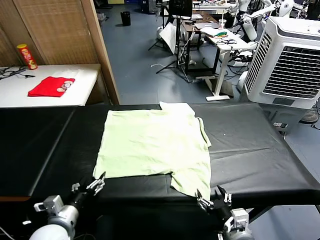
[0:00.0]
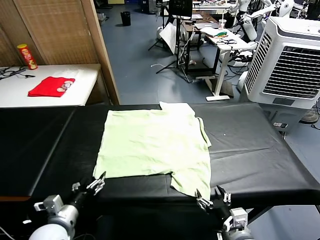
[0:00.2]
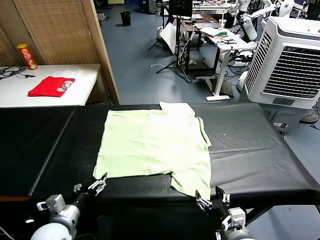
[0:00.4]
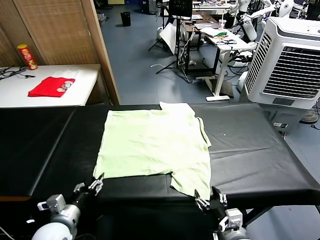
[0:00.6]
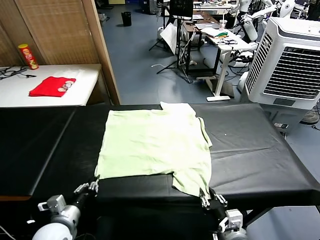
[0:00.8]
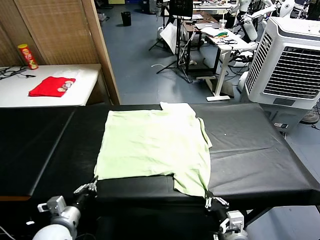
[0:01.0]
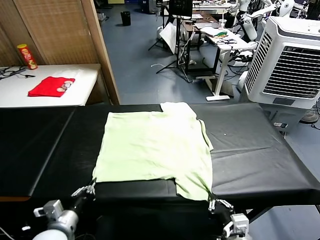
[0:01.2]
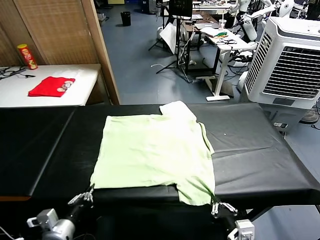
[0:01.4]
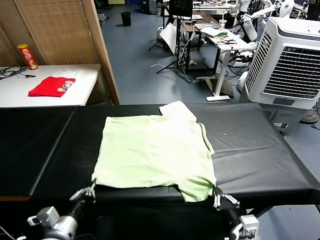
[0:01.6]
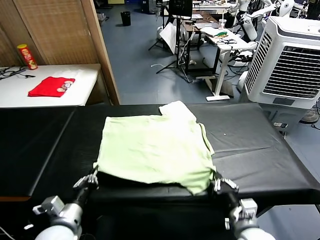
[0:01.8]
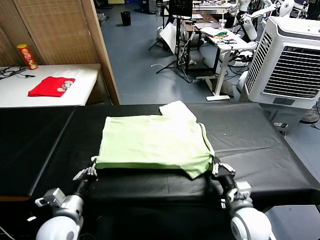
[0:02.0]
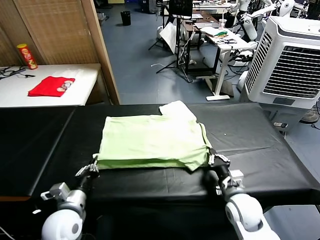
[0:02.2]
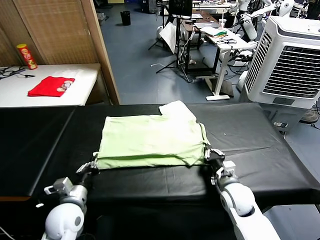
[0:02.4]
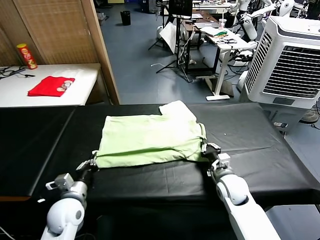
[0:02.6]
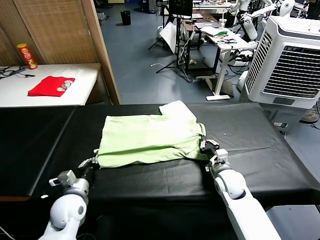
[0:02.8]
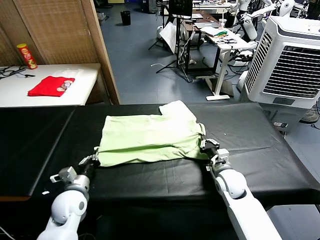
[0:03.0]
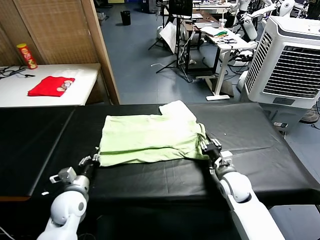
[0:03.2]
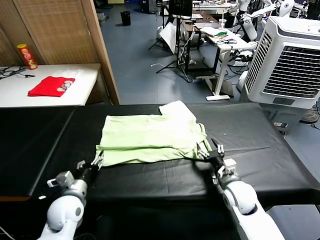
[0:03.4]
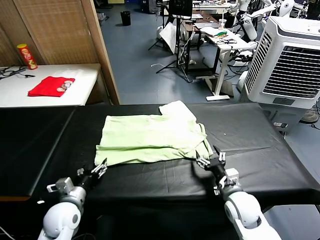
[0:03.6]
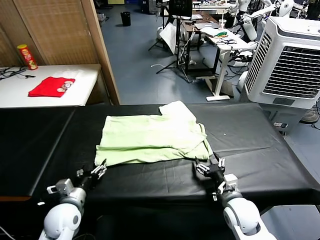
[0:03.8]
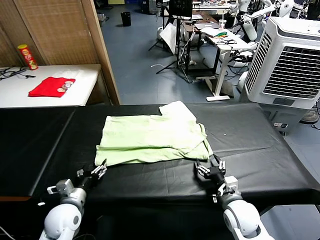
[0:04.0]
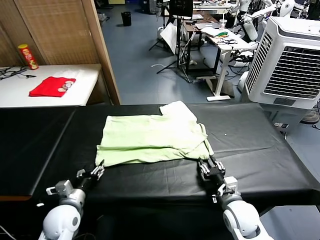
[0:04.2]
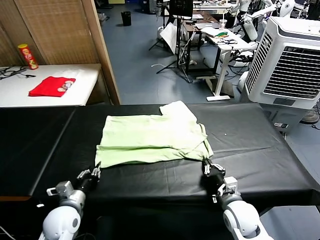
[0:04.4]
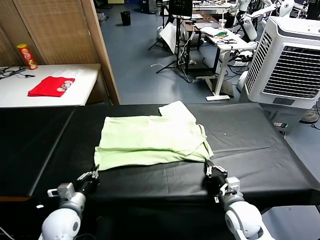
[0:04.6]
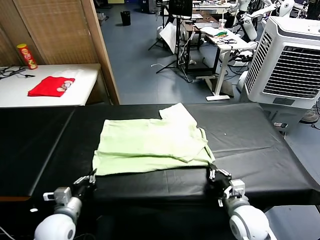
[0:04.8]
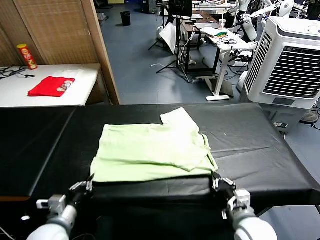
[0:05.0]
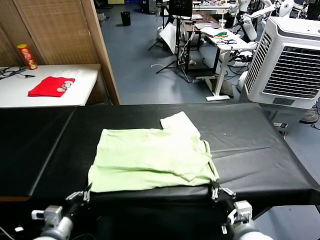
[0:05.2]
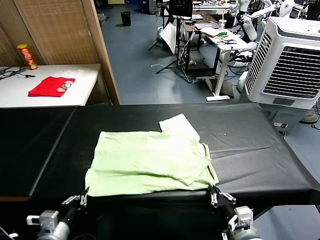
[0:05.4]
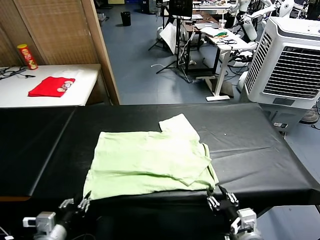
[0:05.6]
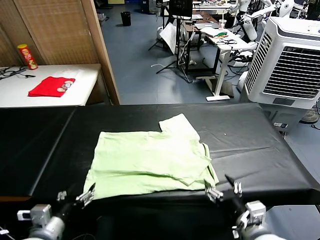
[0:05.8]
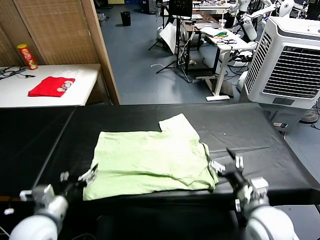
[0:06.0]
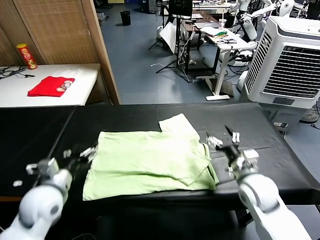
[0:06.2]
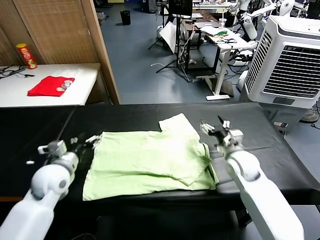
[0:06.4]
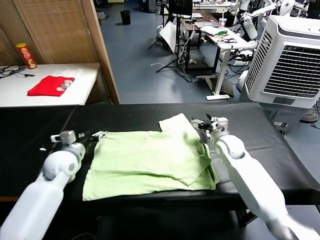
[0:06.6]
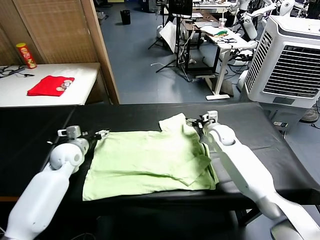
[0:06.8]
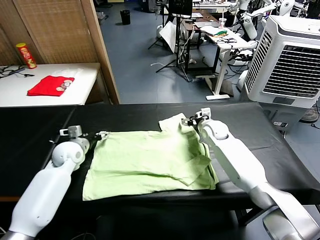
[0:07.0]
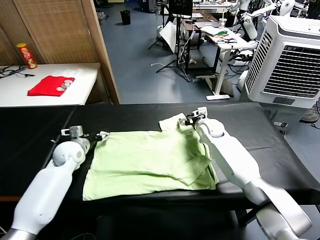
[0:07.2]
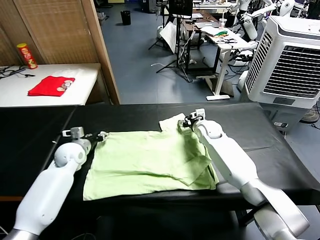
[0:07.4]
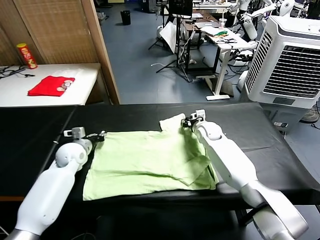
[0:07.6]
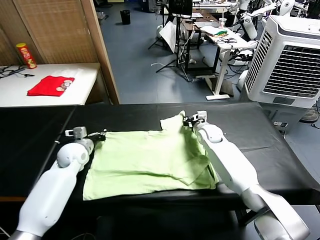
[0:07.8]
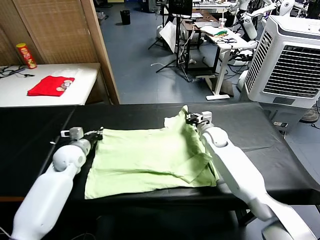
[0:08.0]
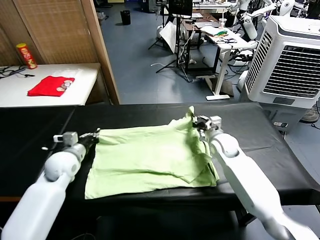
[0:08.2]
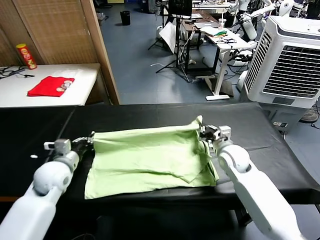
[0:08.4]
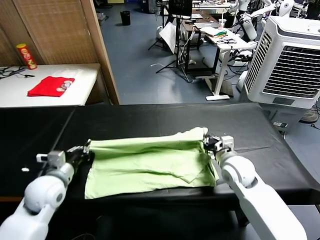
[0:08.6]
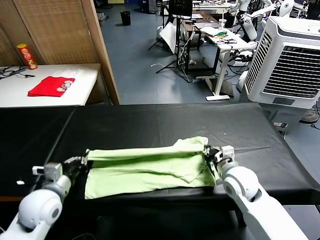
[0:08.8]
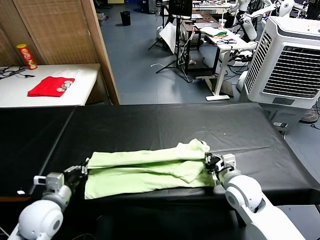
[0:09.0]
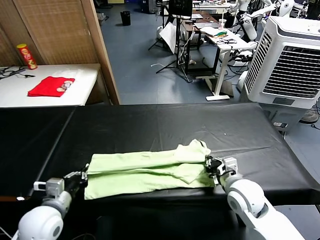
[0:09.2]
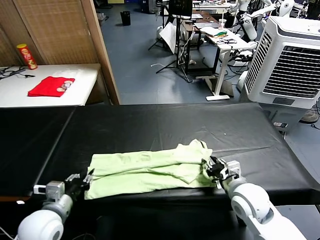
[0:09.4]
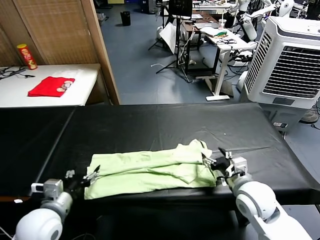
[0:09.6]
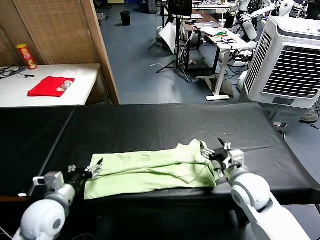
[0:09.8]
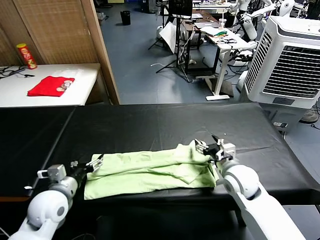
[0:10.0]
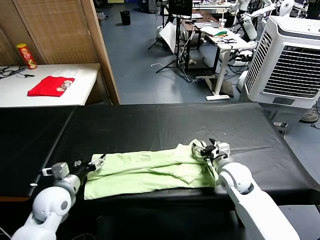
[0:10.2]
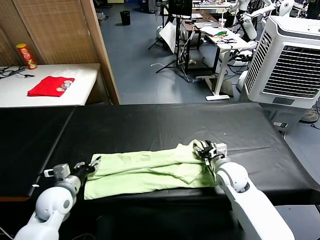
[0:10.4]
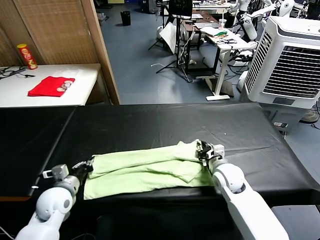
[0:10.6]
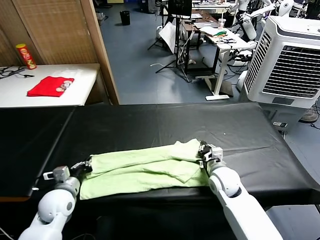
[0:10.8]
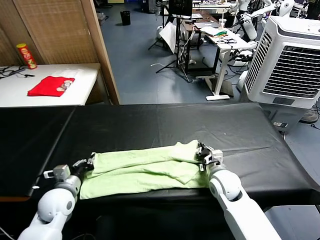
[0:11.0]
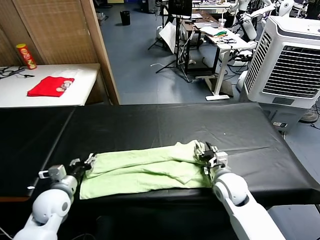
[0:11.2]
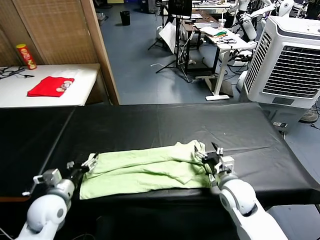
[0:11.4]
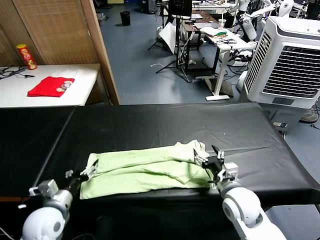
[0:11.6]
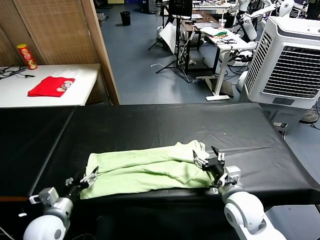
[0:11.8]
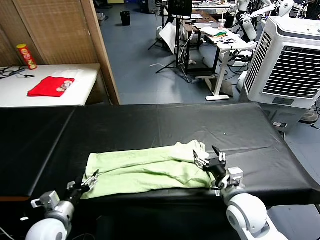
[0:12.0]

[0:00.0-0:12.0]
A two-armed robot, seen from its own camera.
Task of the whole recording: fold and organize the clothes.
Step, 0:00.0 to 0:01.0: use both grippers simultaneously to clamp the lower edge of the clothing fabric.
Step, 0:01.2 to 0:03.4: use both grippers to drag the lower edge of the fabric forward and fold it over the upper edge.
Step, 0:03.6 to 0:05.6: Drag the clothes downward with both gripper.
Step, 0:05.8 to 0:07.6: use both grippers simultaneously to clamp the upper edge of the clothing fabric.
Step, 0:07.8 to 0:09.4: use both grippers to drag the upper edge of the fabric backward and fold it over the lower edge.
0:01.6 to 0:03.0: Both grippers travel together forward, some 15 cm. The right gripper opens up.
0:03.0 to 0:04.4: The left gripper ends up some 5 cm from where it was, and opens, then closes again. The right gripper moves backward, roughly 10 cm, and closes up.
0:04.4 to 0:06.0: Both grippers move upward, approximately 10 cm. The left gripper opens, while the right gripper moves about 10 cm backward and comes back, and opens.
0:06.0 to 0:07.6: Both grippers travel together forward, about 25 cm. The right gripper closes its fingers; the left gripper closes.
0:07.6 to 0:09.0: Both grippers move backward, roughly 25 cm.
0:09.0 to 0:10.4: The grippers both shift forward by roughly 5 cm. The left gripper opens. The right gripper opens its fingers.
0:10.4 to 0:12.0: The grippers both shift backward by approximately 10 cm. The right gripper opens. Meanwhile the left gripper opens its fingers.

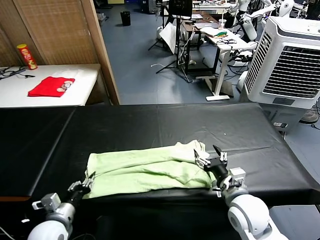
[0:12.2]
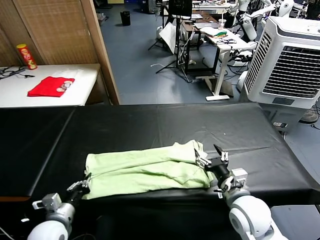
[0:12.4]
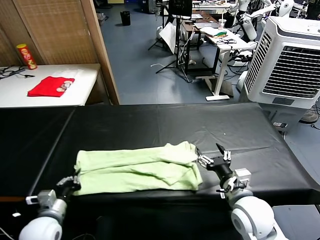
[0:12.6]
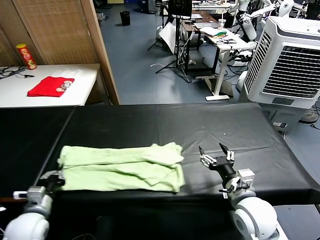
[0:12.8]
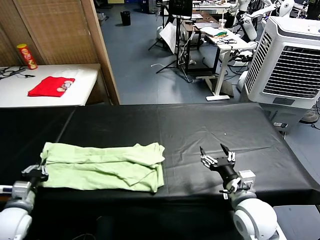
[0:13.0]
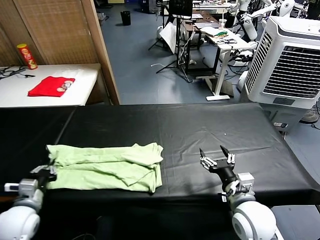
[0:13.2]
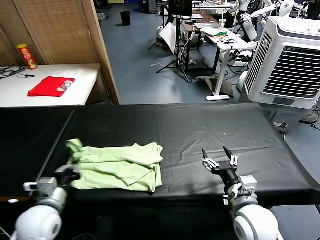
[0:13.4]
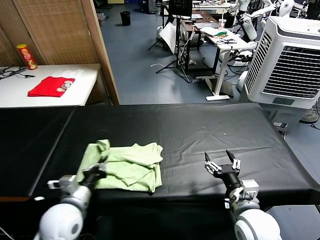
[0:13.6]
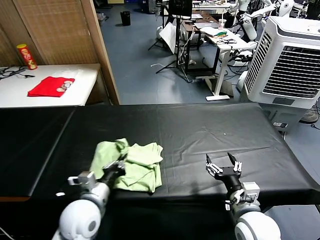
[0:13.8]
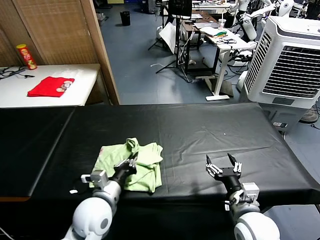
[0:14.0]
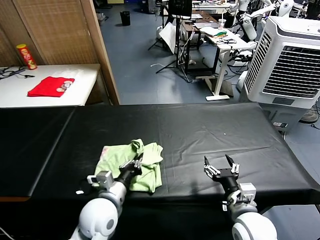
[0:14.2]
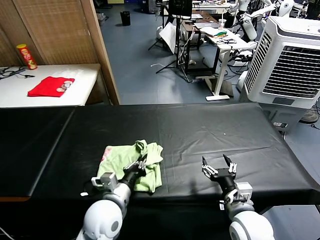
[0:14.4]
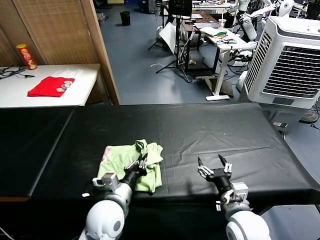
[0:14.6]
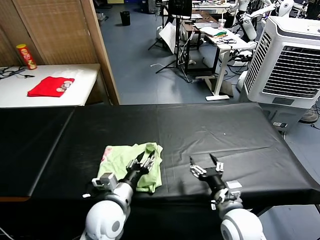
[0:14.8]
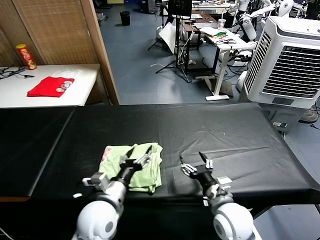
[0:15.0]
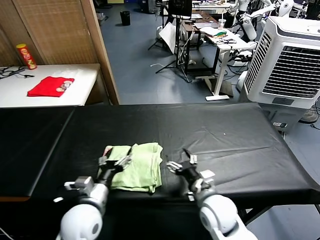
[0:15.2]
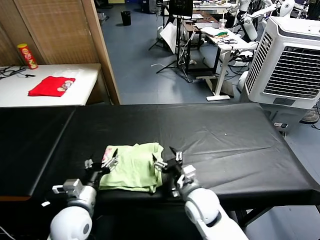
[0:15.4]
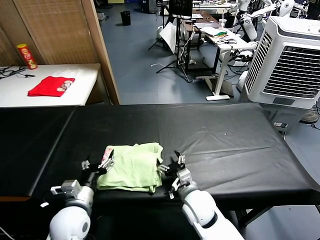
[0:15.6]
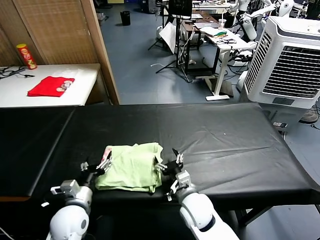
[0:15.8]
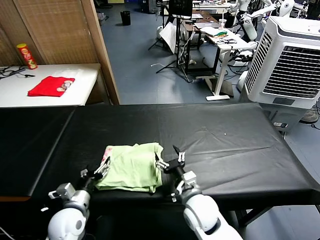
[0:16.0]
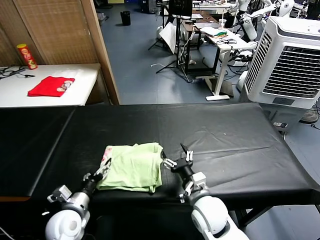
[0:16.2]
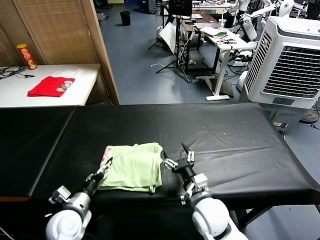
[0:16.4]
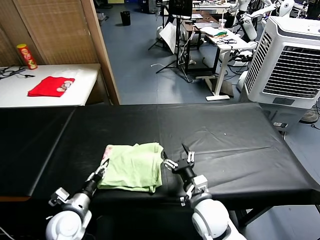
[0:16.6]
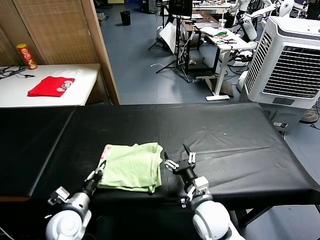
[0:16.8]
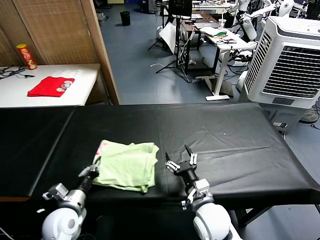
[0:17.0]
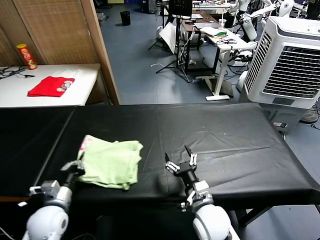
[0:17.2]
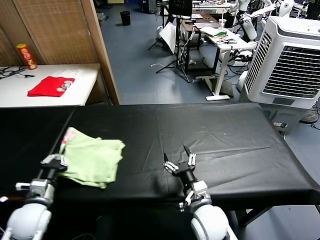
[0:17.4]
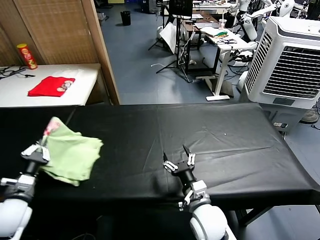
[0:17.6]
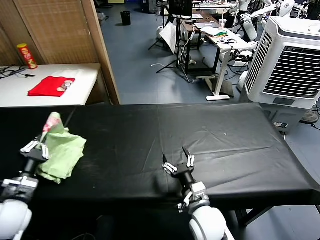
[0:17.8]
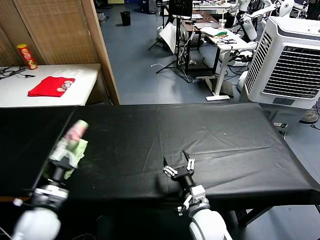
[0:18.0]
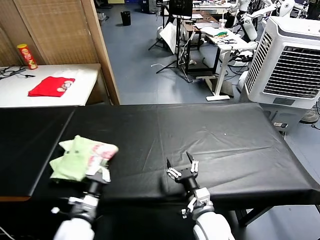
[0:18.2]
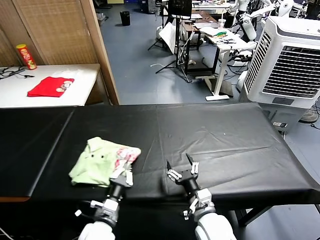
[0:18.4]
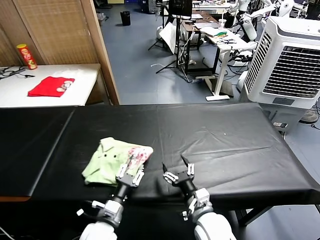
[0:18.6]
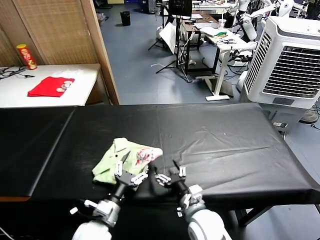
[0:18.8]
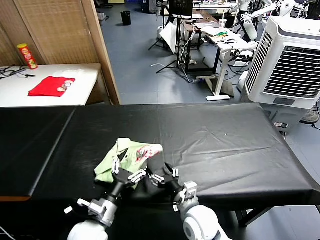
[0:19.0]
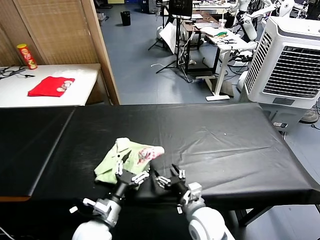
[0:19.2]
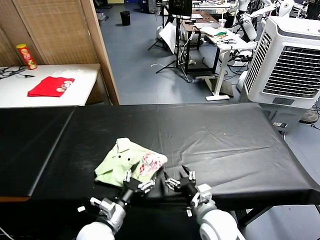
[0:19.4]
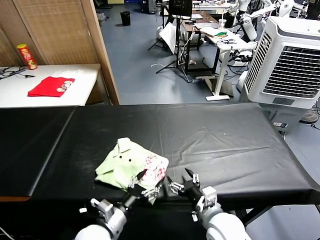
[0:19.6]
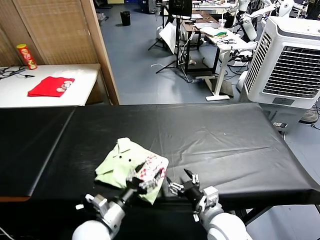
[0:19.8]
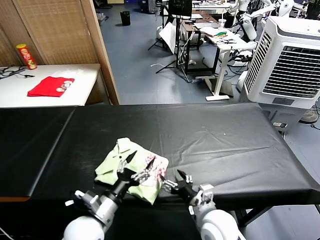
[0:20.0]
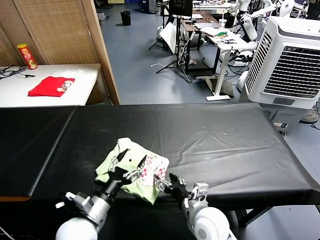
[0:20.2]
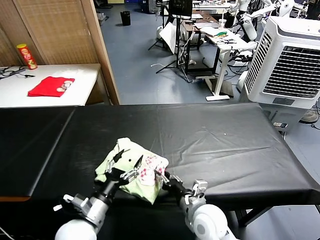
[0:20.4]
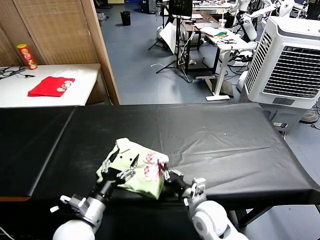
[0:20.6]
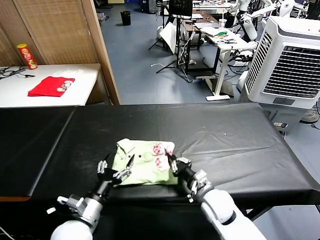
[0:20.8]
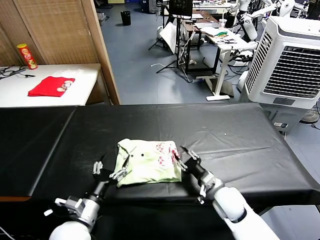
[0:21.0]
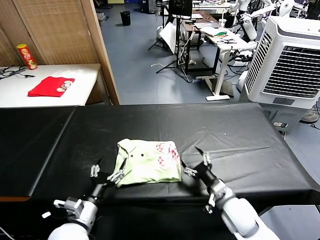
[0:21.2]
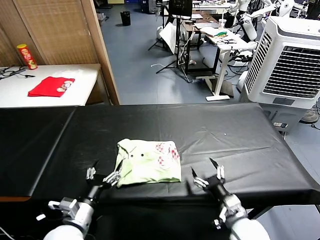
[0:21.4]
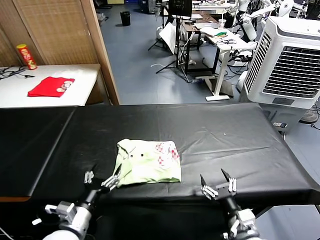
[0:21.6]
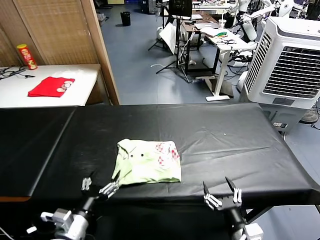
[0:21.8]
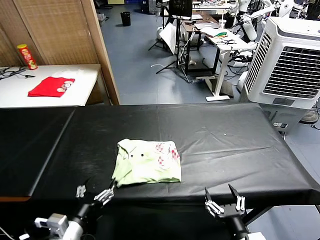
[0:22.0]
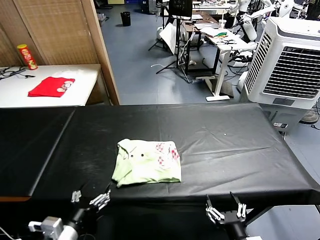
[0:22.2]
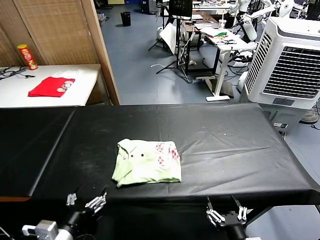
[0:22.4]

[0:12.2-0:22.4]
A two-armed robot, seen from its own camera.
Task of the whole recording: fold and organize the clothes.
Step, 0:12.4 to 0:14.8: use the left gripper to drag the left edge of the fabric to the left and folds it over the right edge.
Step, 0:15.0 to 0:18.4: Flip the folded clothes over with left gripper.
Step, 0:18.8 to 0:21.0: Drag the clothes to the center of the table.
0:12.2 to 0:13.6: The left gripper travels to the right and upward by about 10 cm.
0:13.6 to 0:15.2: The right gripper heads to the left and forward, covering approximately 10 cm. Meanwhile the left gripper opens up.
0:15.2 to 0:16.6: The left gripper moves to the left and downward, about 10 cm, and closes its fingers.
0:16.6 to 0:18.0: The left gripper heads upward and to the left, covering some 10 cm, and closes up.
0:18.0 to 0:19.4: The left gripper heads to the right, covering about 15 cm, and opens its fingers.
0:19.4 to 0:21.0: The left gripper shifts some 5 cm to the left, while the right gripper goes about 10 cm forward and to the right, and closes up.
0:21.0 to 0:22.4: The right gripper goes approximately 25 cm backward, and opens. The left gripper heads backward, covering approximately 10 cm.
